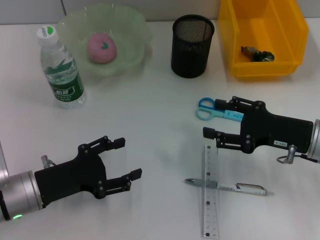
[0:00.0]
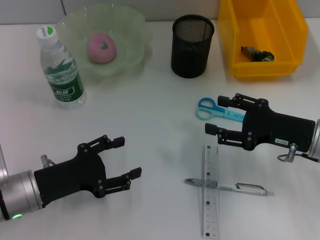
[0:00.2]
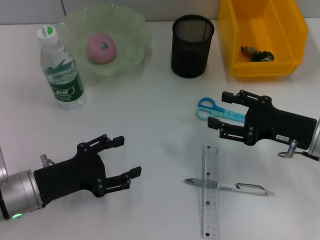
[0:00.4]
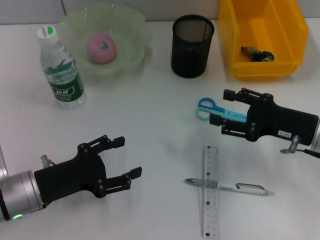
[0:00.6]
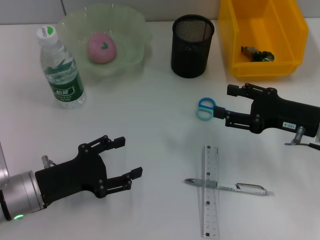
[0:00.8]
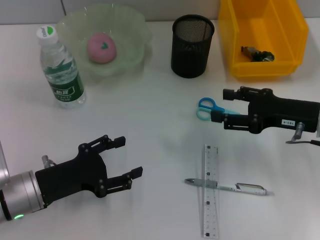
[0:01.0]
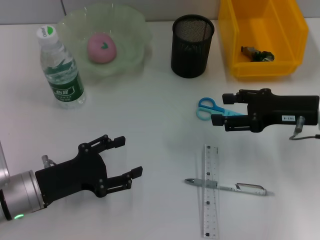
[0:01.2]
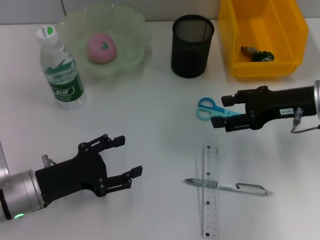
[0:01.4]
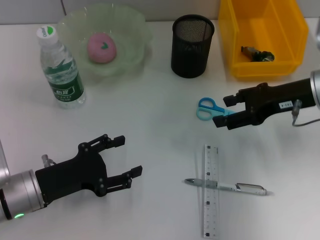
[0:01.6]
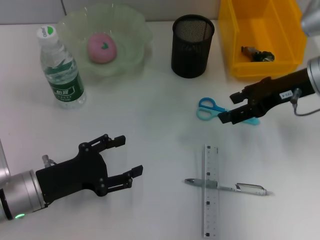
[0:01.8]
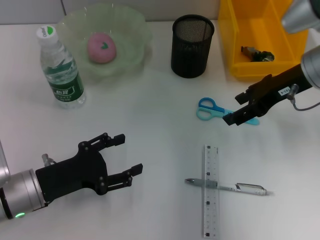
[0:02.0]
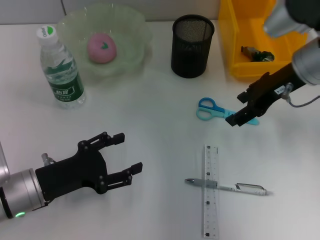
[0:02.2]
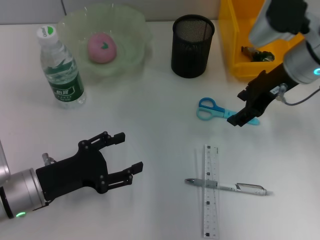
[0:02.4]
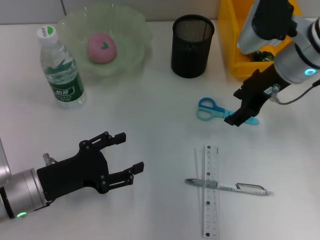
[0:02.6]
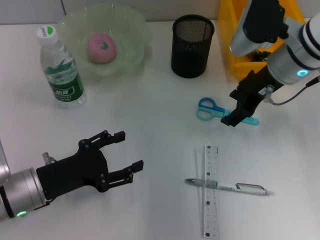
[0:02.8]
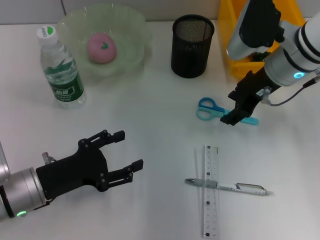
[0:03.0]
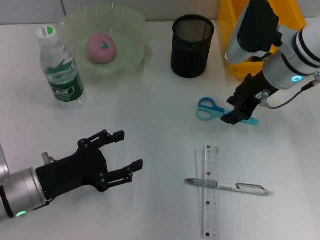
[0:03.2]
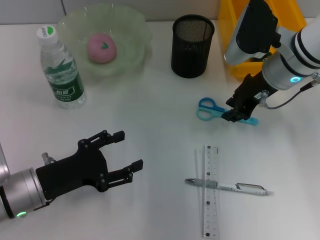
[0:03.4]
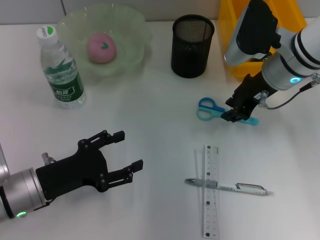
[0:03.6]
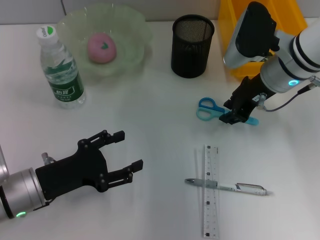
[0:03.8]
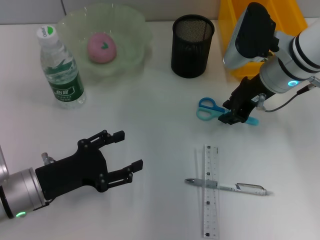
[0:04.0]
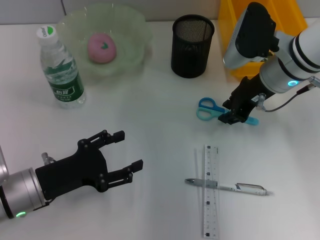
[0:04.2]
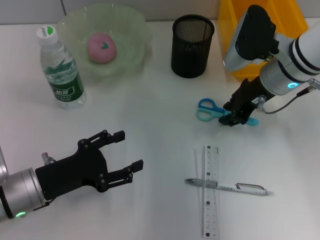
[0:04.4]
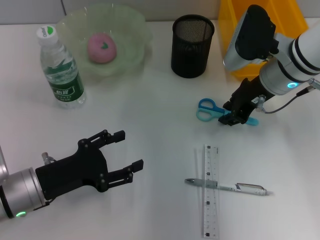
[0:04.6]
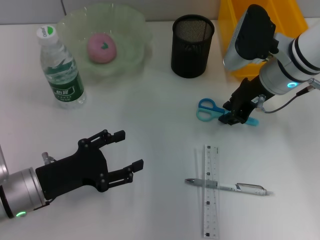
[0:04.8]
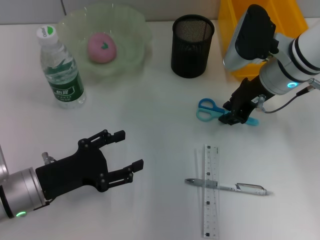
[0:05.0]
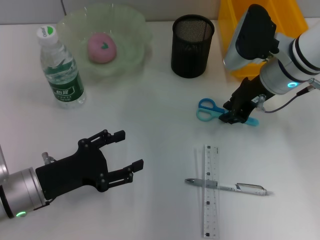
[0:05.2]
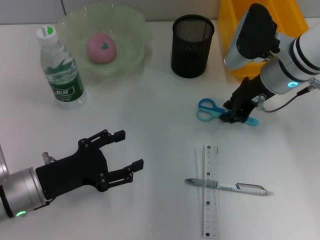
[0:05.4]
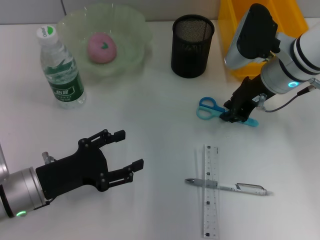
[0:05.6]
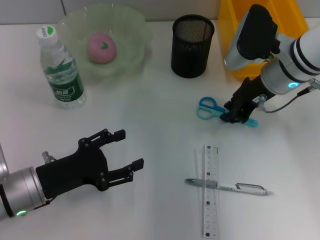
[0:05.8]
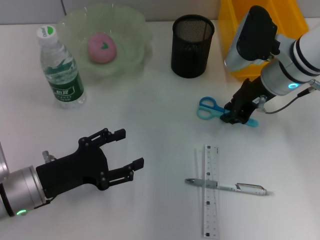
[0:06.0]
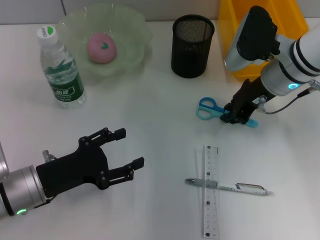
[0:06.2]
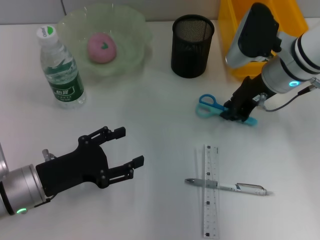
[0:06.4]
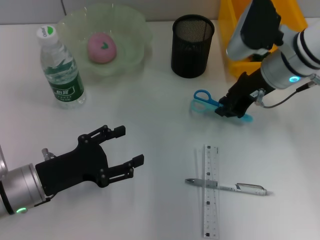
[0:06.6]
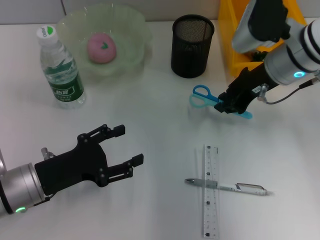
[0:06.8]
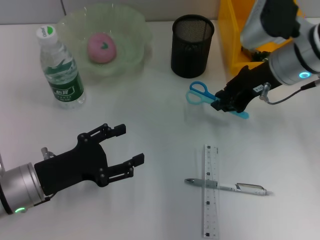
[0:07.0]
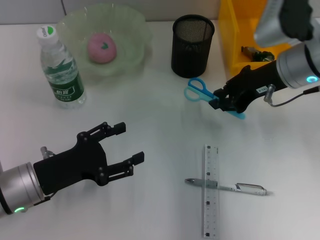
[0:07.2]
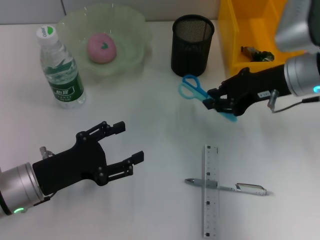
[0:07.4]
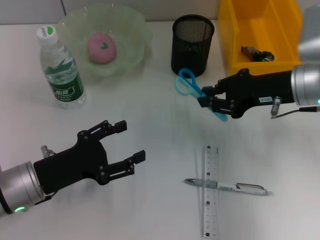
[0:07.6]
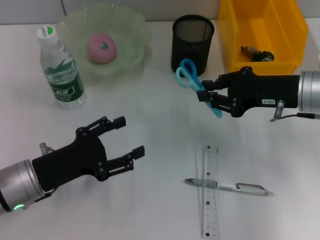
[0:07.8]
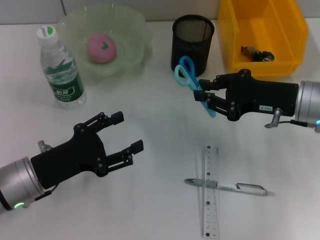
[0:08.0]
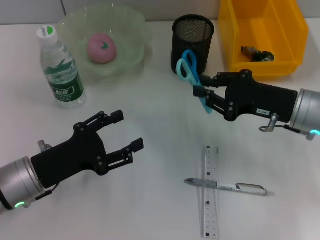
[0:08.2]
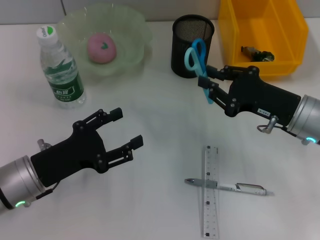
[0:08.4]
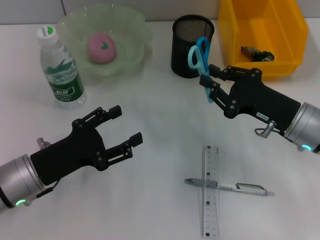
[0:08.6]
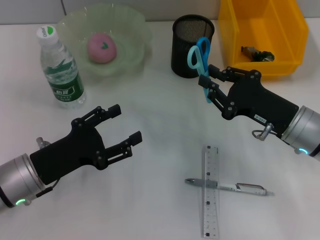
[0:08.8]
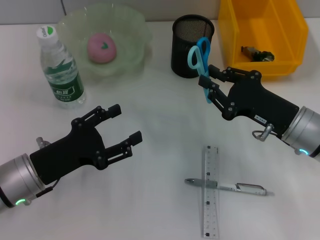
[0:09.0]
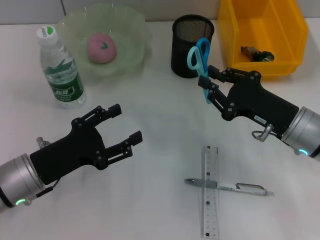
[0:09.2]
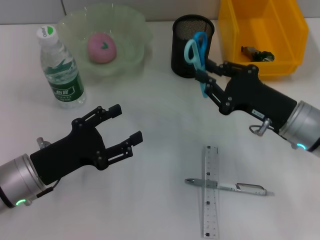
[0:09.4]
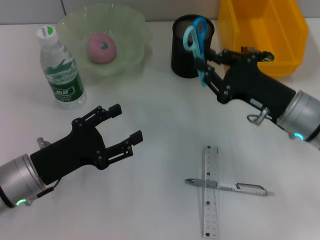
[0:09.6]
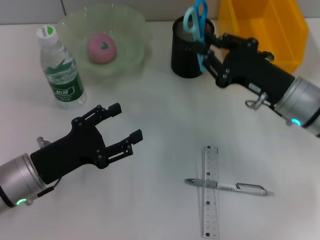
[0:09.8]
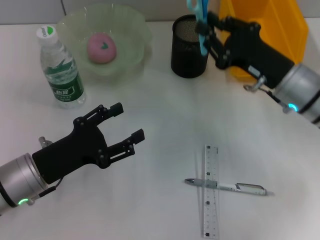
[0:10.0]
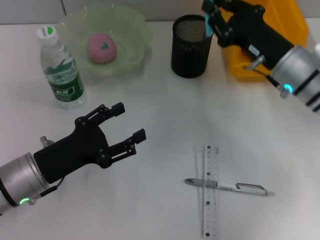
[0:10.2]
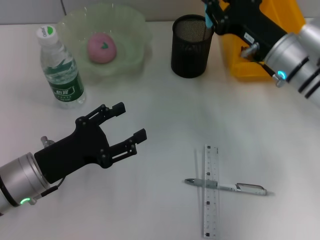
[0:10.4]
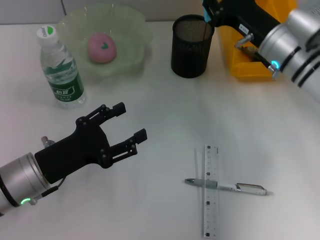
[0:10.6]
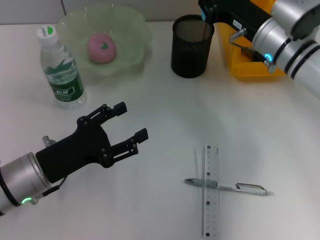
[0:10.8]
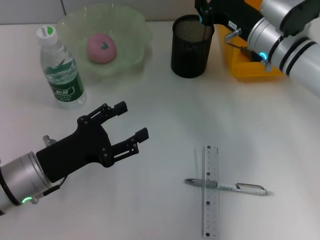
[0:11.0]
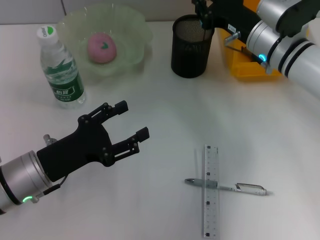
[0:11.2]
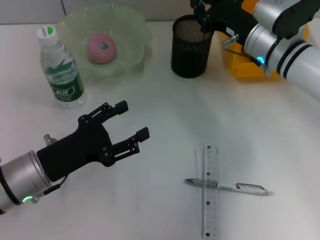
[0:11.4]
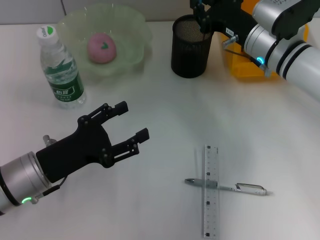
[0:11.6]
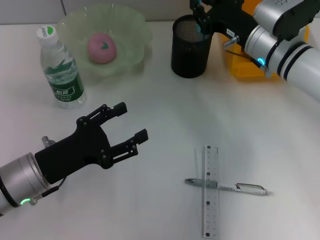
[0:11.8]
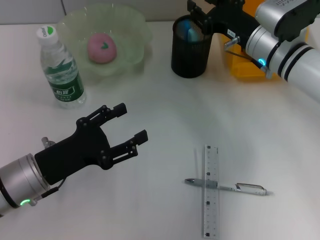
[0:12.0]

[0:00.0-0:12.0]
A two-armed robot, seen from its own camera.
Step, 0:00.0 to 0:06.2: Grab the blue scissors with the right hand.
0:00.0 to 0:01.6: The right gripper shifts approximately 10 cm upward and forward.
0:01.6 to 0:03.0: The right gripper shifts about 5 cm to the left.
0:03.0 to 0:04.4: The right gripper closes its fingers.
0:04.4 to 0:06.0: Neither gripper changes place.
0:06.0 to 0:07.6: The right gripper moves about 5 cm.
0:07.6 to 0:09.0: The right gripper shifts roughly 10 cm downward and backward.
0:09.0 to 0:10.4: The right gripper heads forward, covering approximately 10 cm.
0:10.4 to 0:12.0: There are only small adjustments of the grippers.

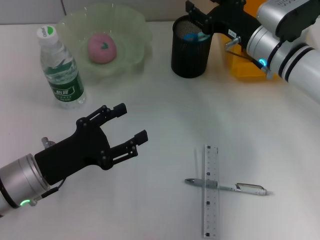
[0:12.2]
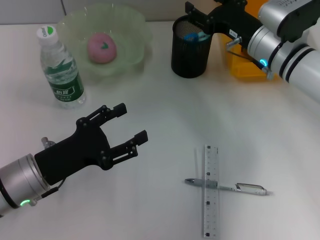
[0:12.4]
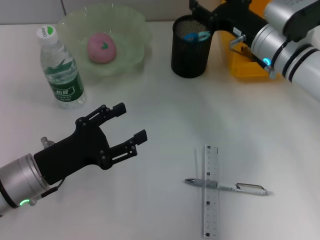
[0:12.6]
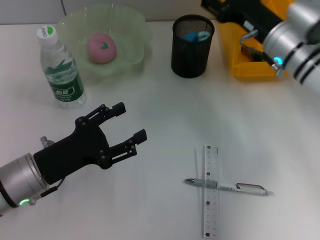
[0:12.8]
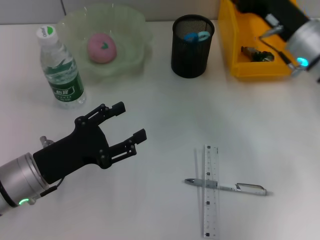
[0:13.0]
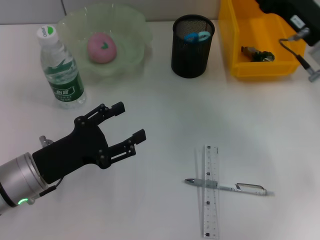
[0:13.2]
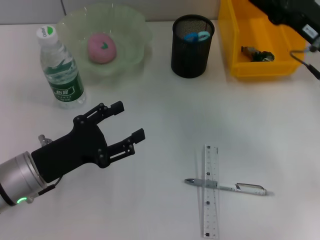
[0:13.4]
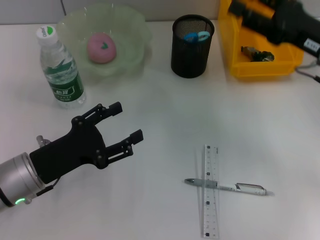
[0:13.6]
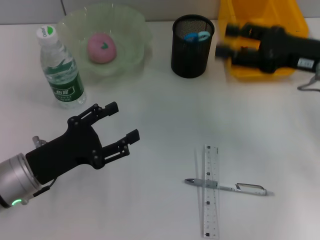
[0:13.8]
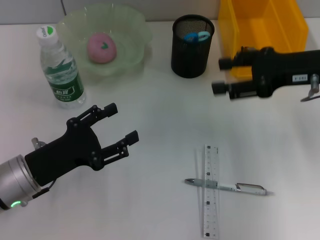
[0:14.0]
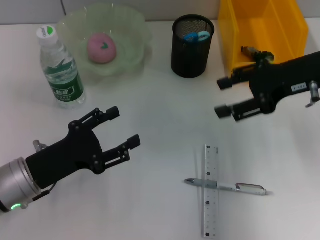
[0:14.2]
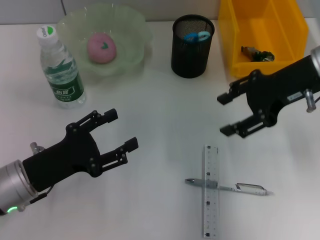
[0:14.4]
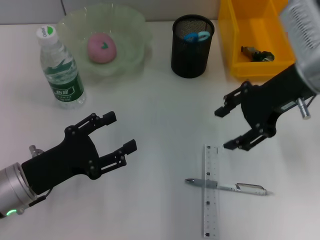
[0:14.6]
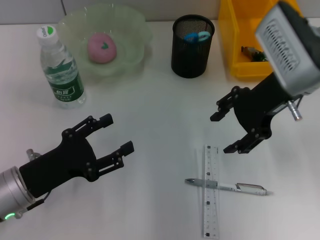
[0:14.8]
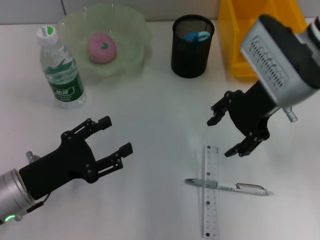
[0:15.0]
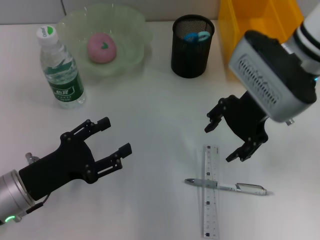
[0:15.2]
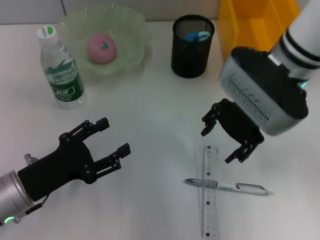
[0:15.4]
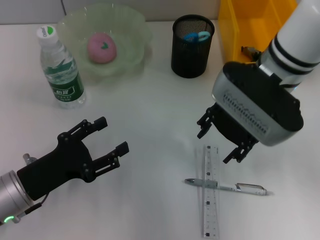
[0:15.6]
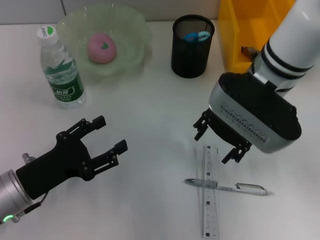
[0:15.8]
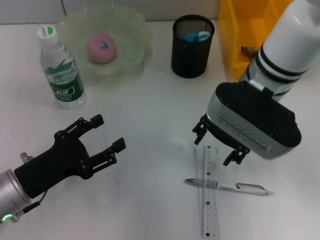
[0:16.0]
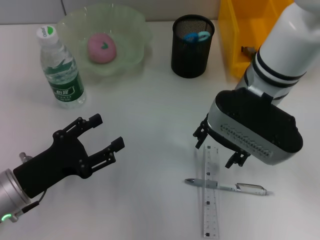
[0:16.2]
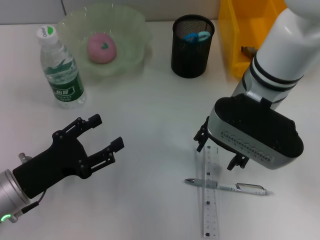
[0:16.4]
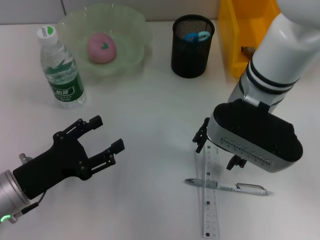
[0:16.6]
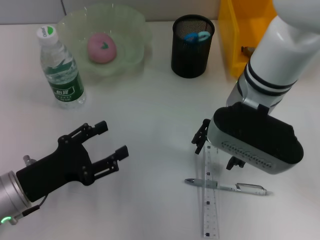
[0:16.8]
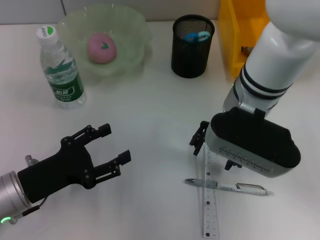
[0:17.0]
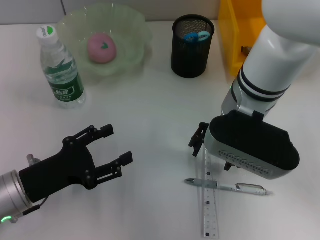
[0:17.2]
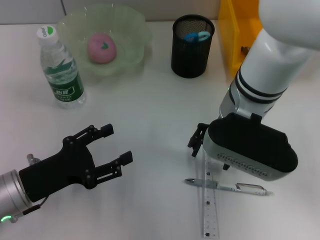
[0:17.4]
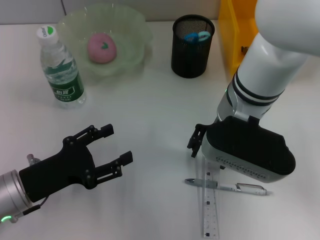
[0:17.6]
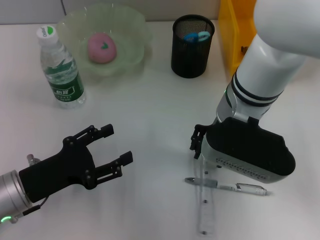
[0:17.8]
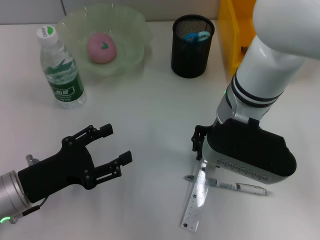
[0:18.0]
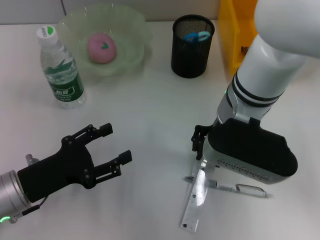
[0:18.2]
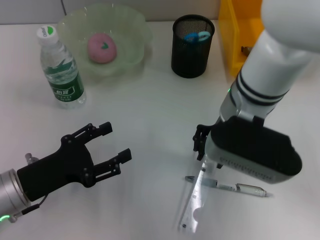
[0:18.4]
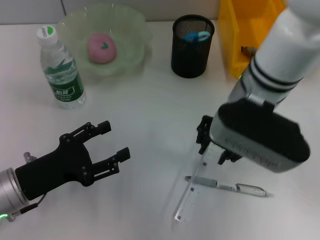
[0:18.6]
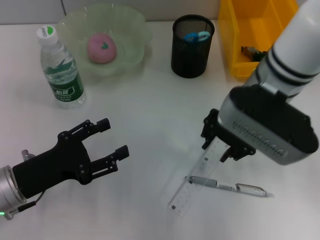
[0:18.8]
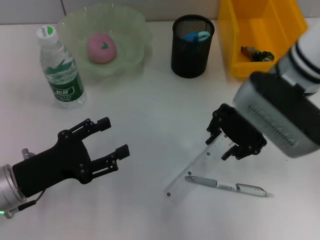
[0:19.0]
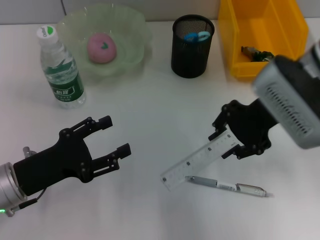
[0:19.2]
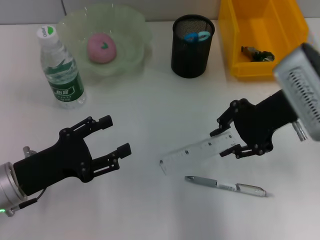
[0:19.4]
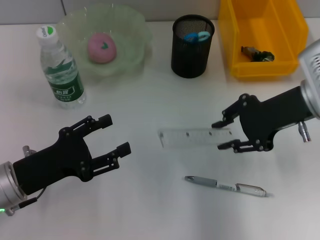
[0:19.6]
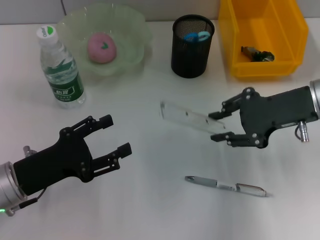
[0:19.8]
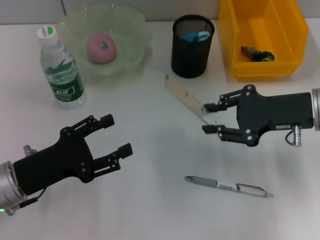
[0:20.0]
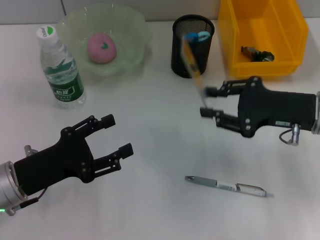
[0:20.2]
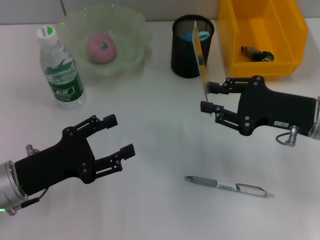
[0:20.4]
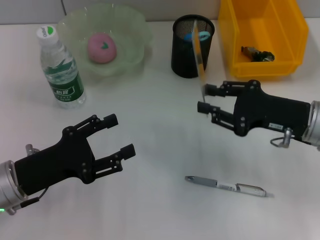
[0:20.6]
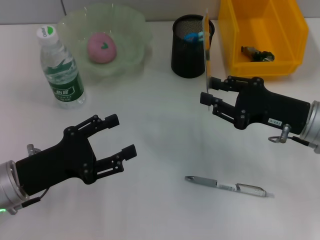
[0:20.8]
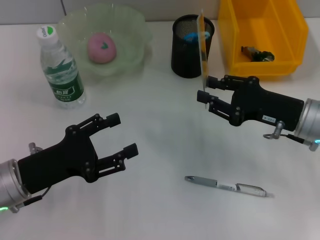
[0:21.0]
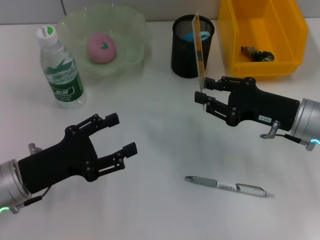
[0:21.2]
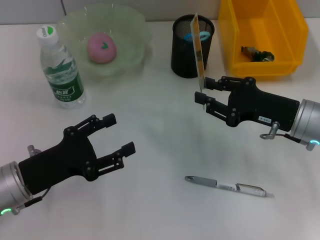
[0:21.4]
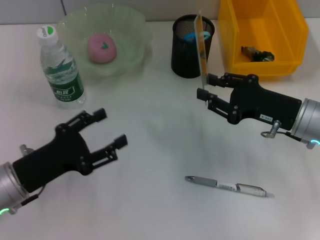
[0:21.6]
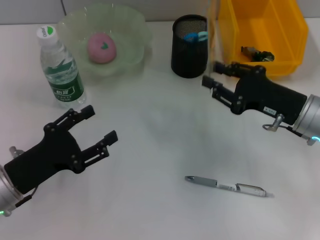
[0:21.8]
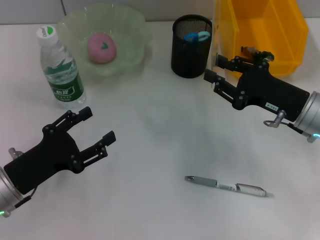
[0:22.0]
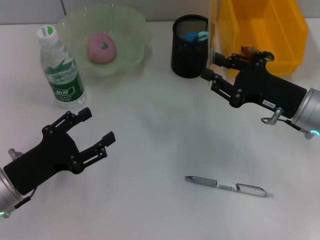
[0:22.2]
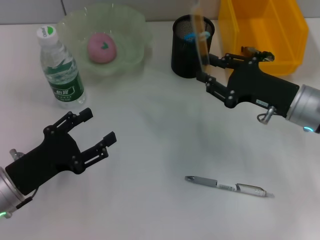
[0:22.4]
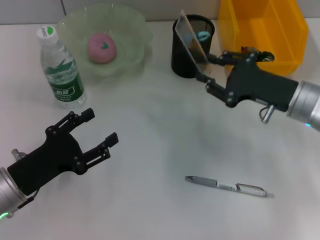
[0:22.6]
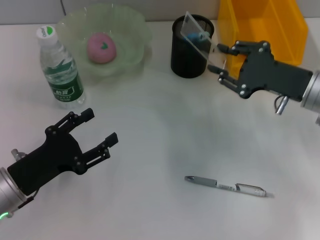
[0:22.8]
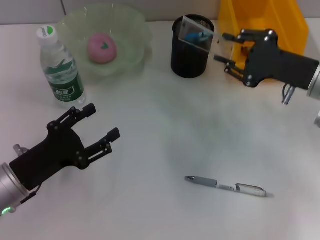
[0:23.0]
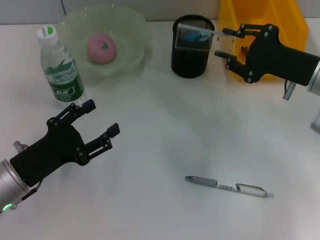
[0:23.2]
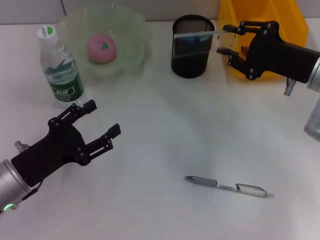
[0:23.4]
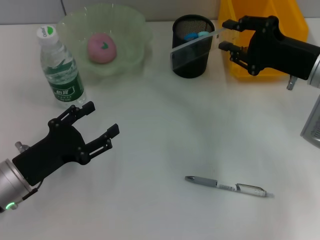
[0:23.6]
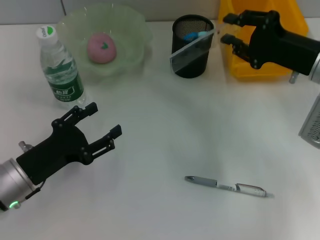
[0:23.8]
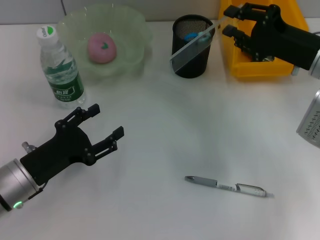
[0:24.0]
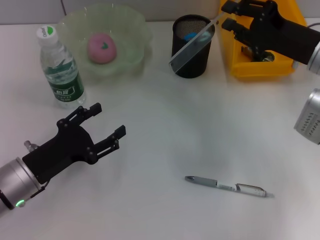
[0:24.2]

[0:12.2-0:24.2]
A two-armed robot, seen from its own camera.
Step, 0:12.2 to 0:17.8: Grab the ruler with the right hand.
0:12.2 to 0:13.8: The right gripper travels to the right, backward and upward by about 15 cm, and opens its fingers.
0:13.8 to 0:15.2: The right gripper shifts roughly 10 cm to the left.
0:15.2 to 0:16.6: The right gripper moves roughly 5 cm.
0:16.6 to 0:18.2: The right gripper closes up.
0:18.2 to 0:19.8: The right gripper shifts some 15 cm to the right.
0:19.8 to 0:21.2: The right gripper heads downward, covering some 5 cm.
0:22.6 to 0:24.2: The right gripper moves upward, roughly 5 cm.
